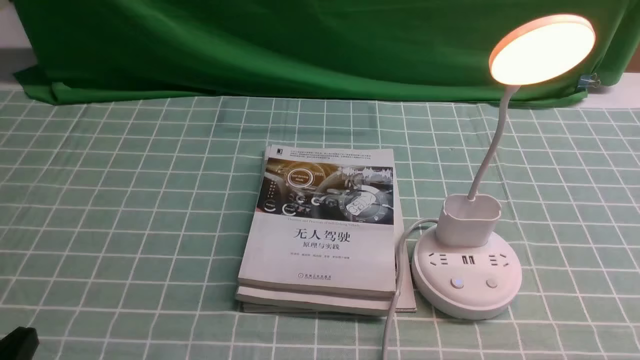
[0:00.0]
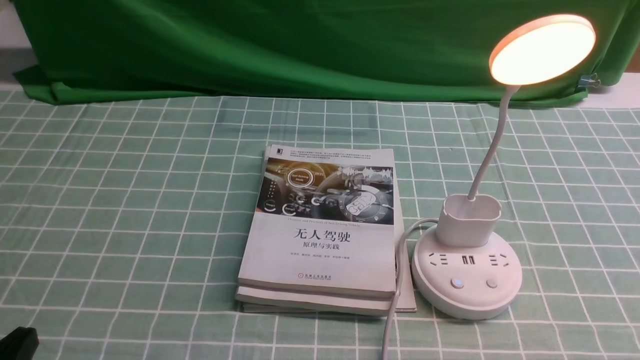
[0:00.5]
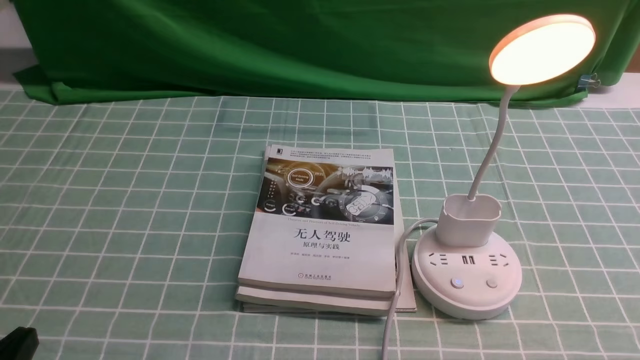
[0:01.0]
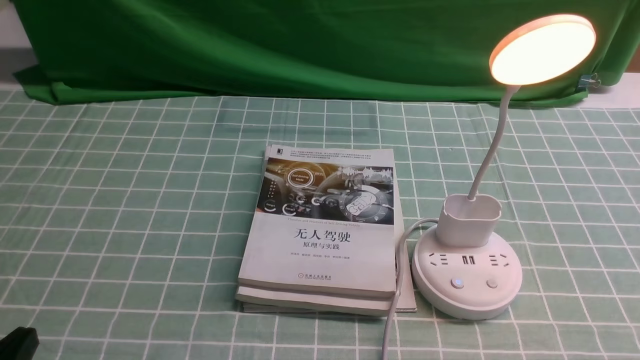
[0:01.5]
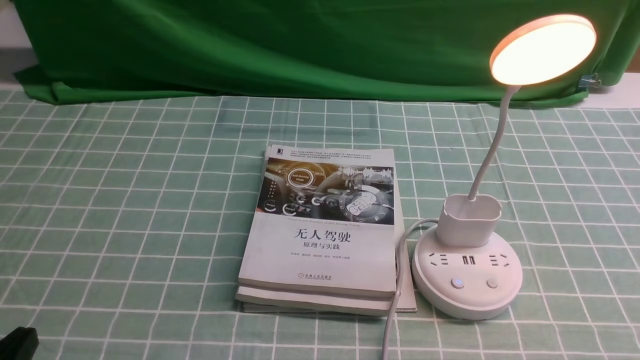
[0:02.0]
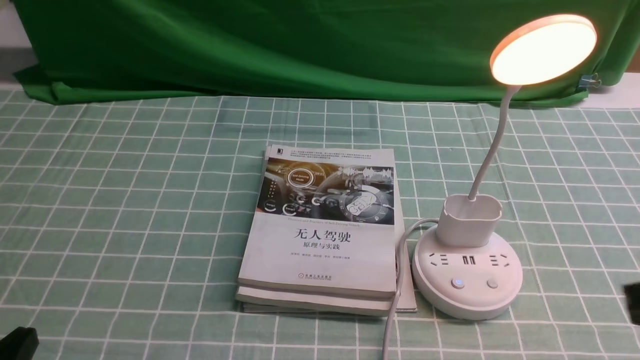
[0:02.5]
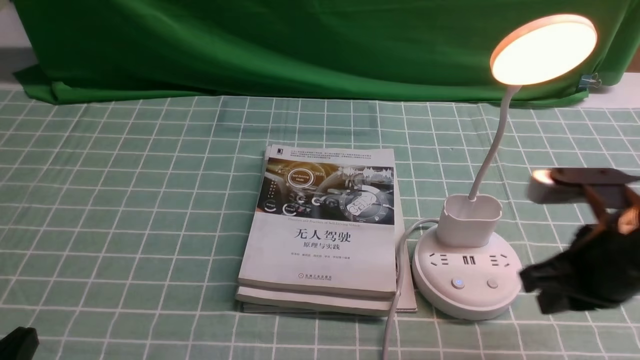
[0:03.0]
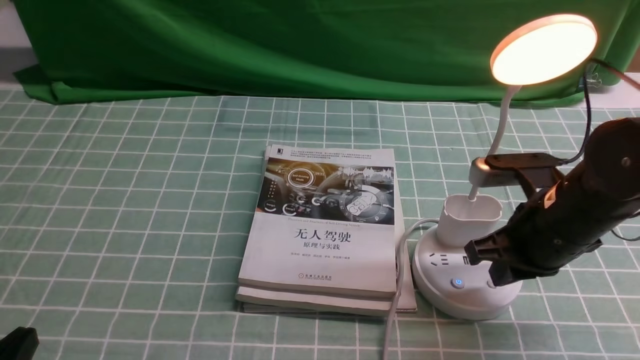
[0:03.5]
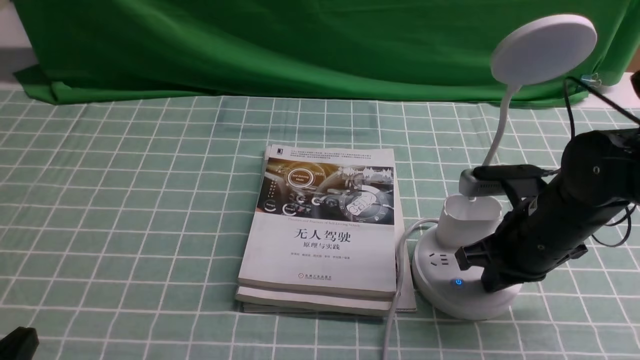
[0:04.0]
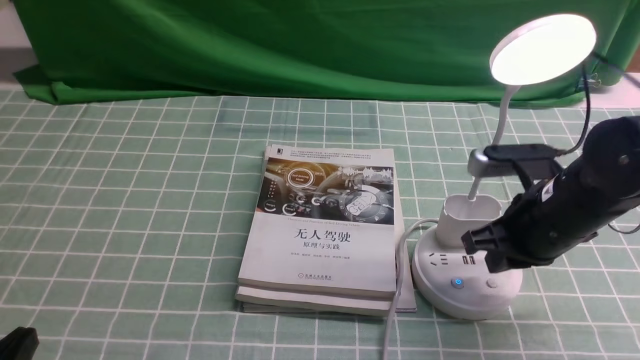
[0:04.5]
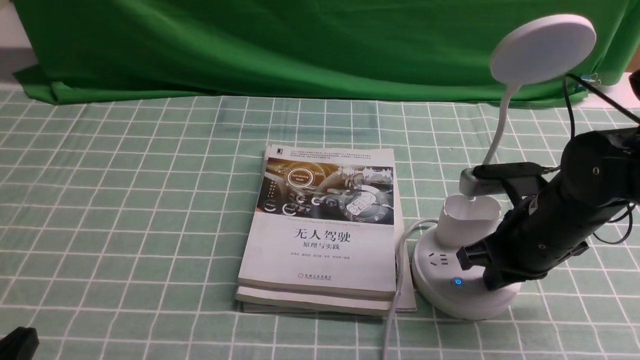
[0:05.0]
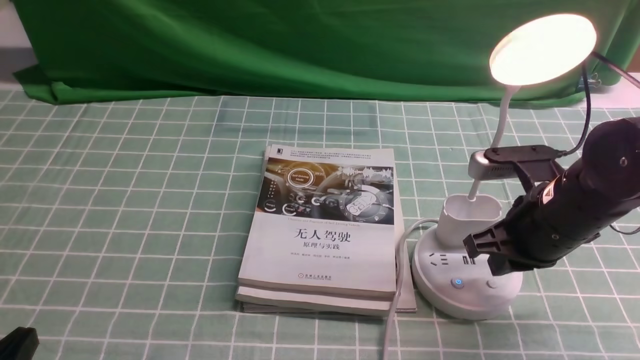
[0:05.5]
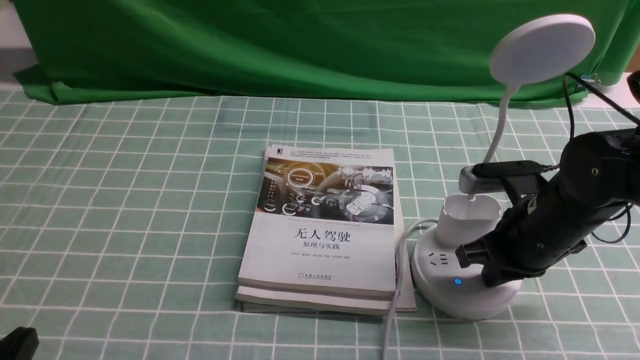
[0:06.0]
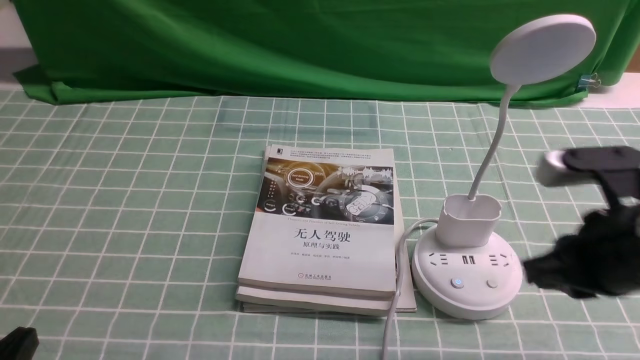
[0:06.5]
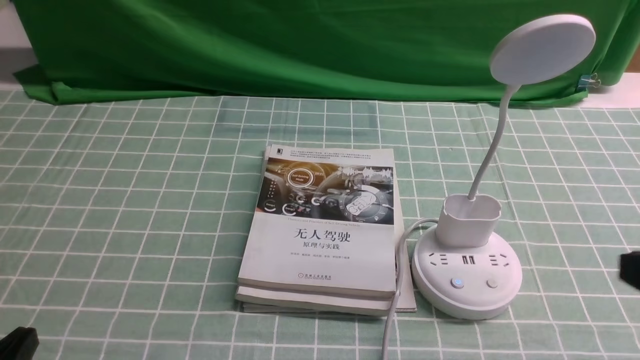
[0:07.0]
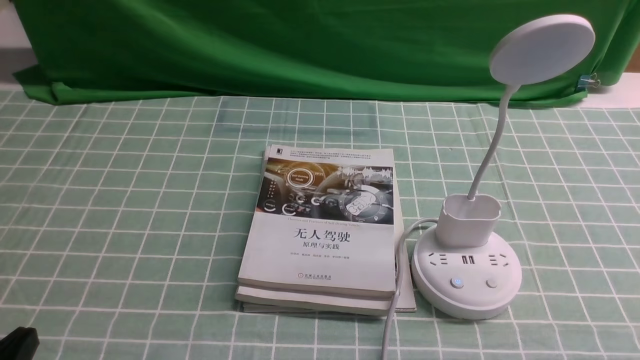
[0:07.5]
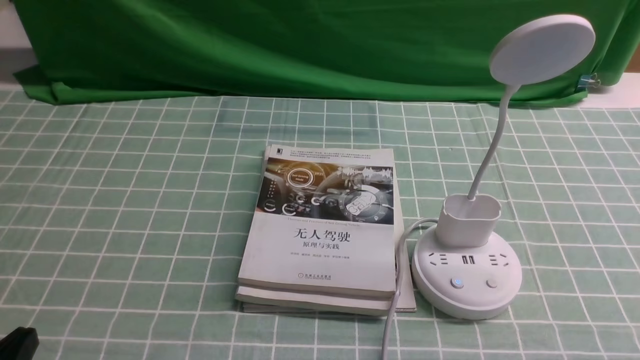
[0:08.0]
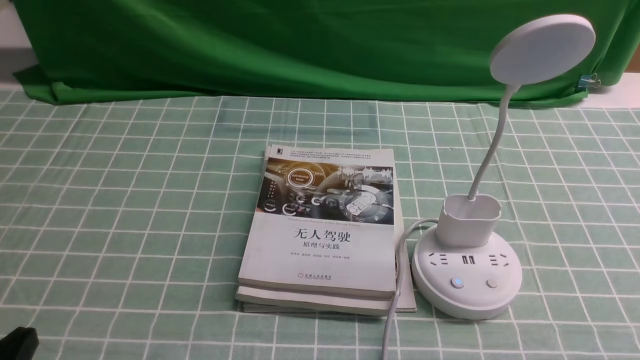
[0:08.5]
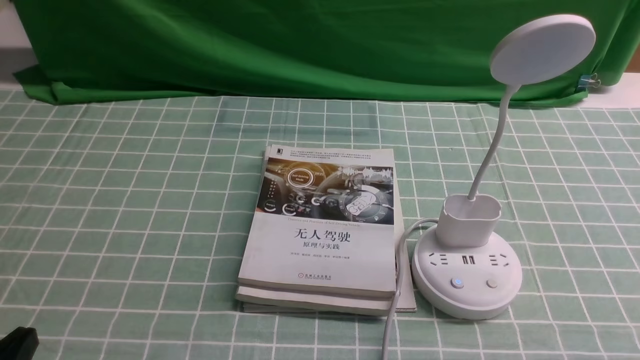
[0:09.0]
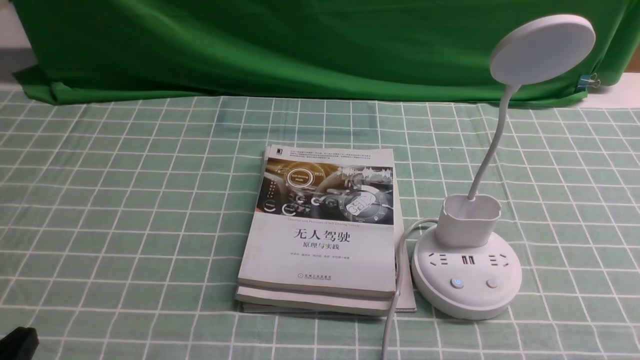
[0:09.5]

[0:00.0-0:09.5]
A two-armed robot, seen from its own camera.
Task of the whole recording: turn off the desk lamp on the blue coffee tablecloth by hand.
Step, 0:00.0 to 0:05.0: use the right arm to press the button switch on the lamp holder.
0:02.0 to 0:04.0: The right gripper shifts roughly 25 cm forward and to the left.
0:05.5 to 0:07.5: The right gripper travels backward and to the right by approximately 25 cm.

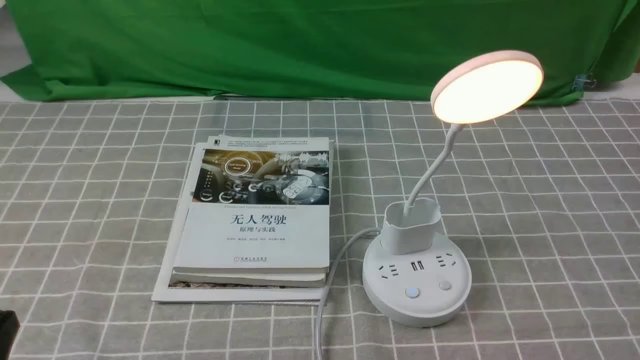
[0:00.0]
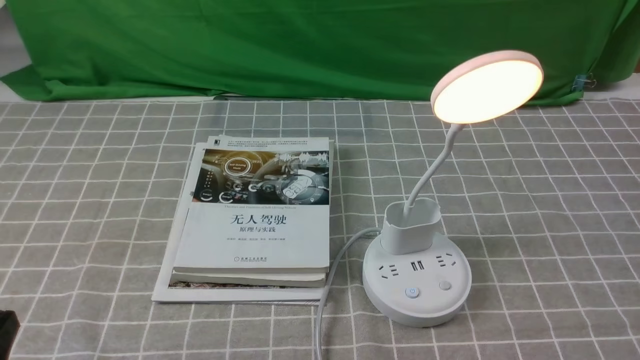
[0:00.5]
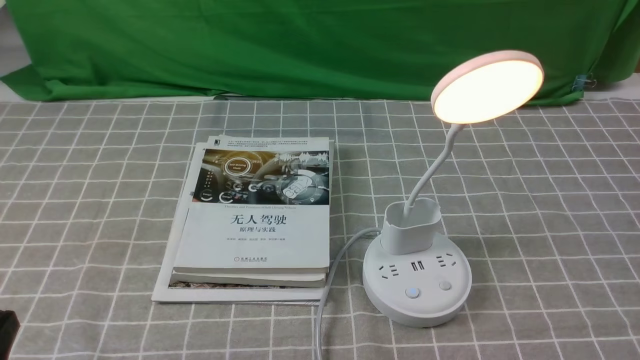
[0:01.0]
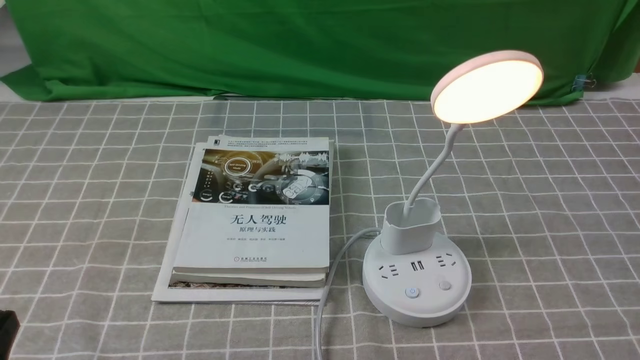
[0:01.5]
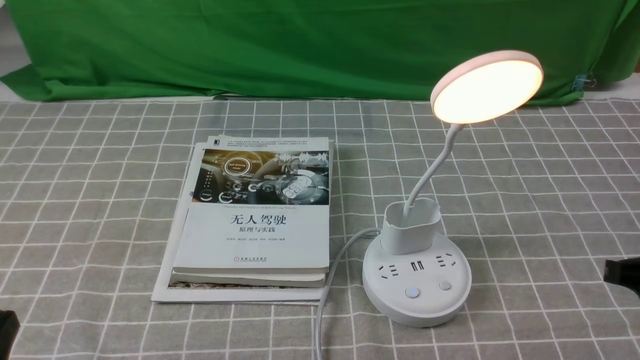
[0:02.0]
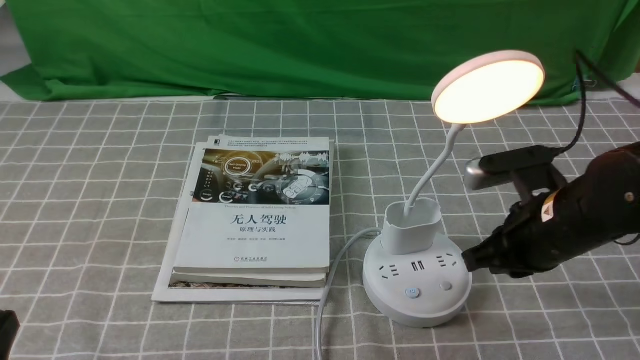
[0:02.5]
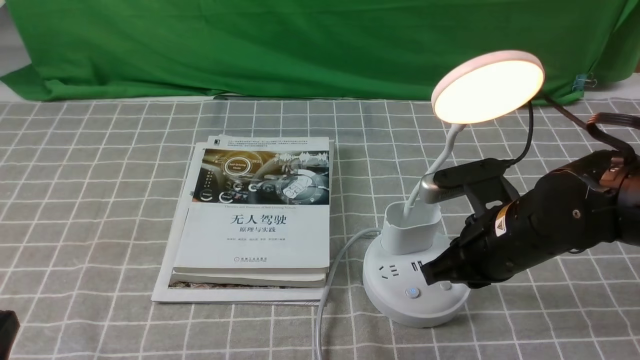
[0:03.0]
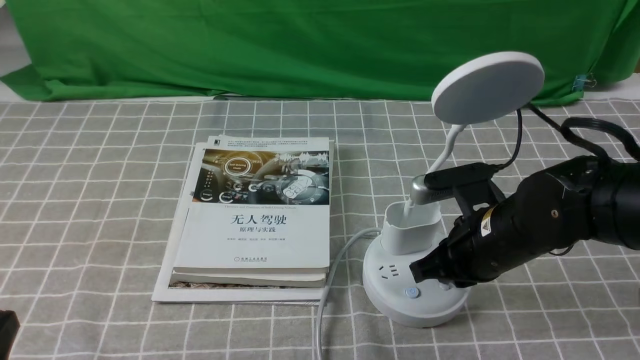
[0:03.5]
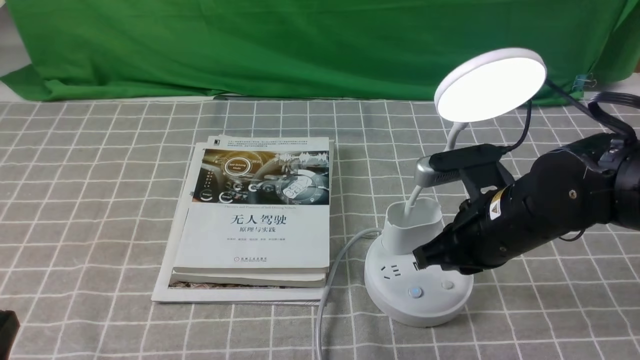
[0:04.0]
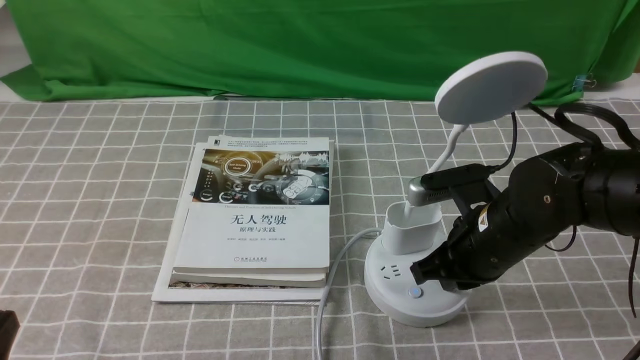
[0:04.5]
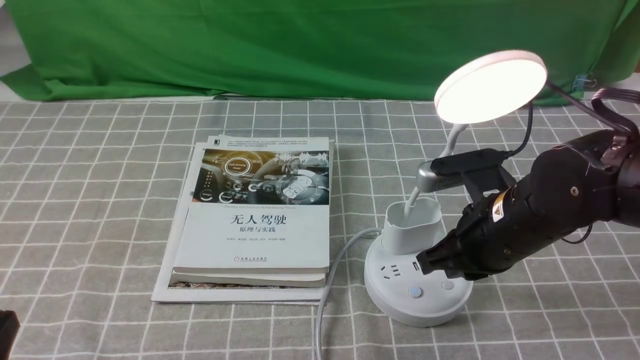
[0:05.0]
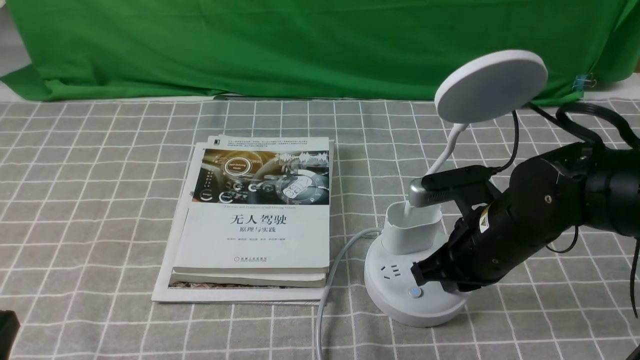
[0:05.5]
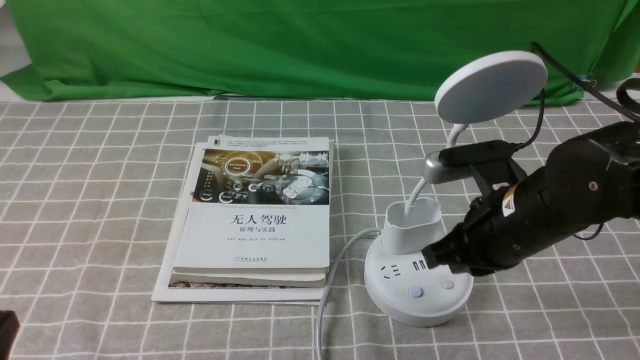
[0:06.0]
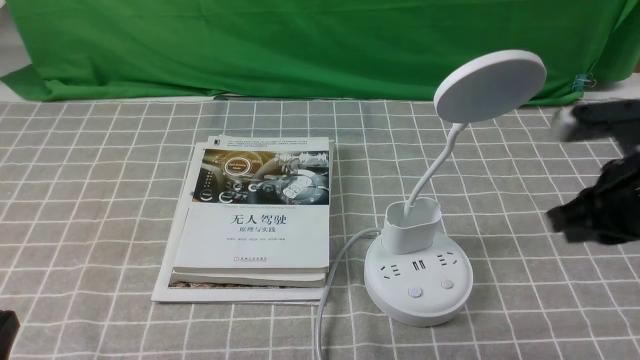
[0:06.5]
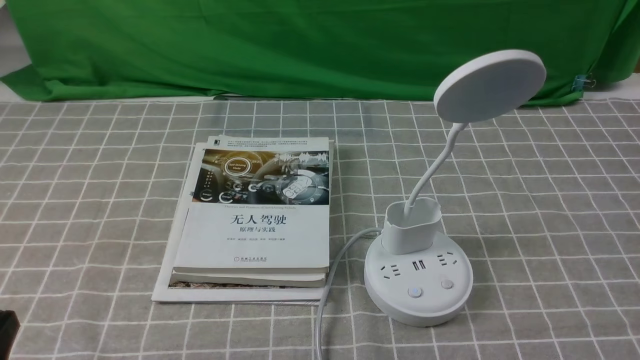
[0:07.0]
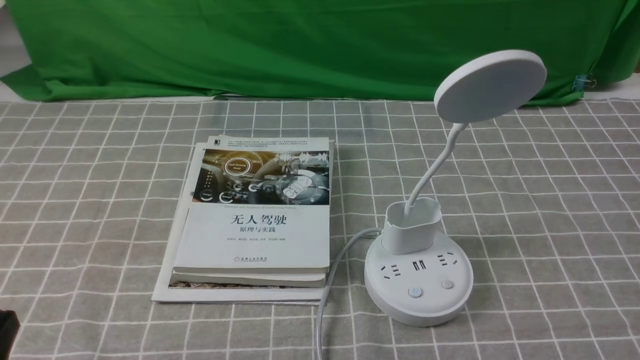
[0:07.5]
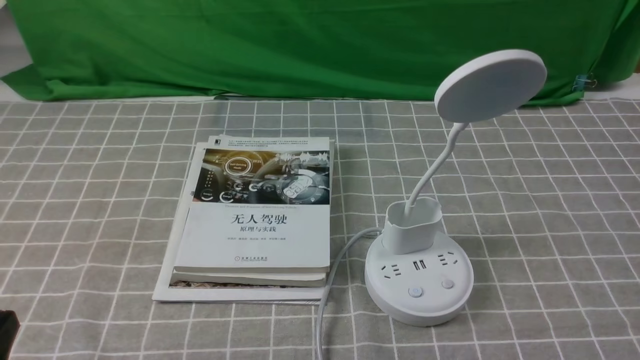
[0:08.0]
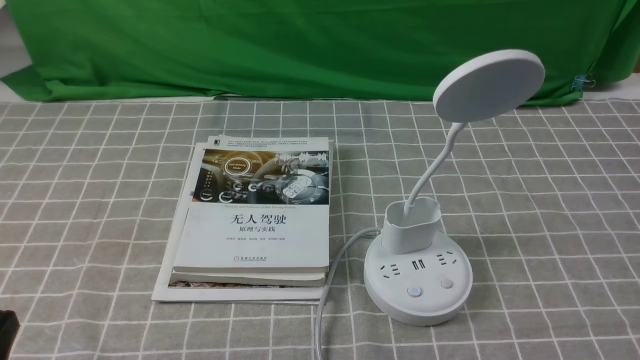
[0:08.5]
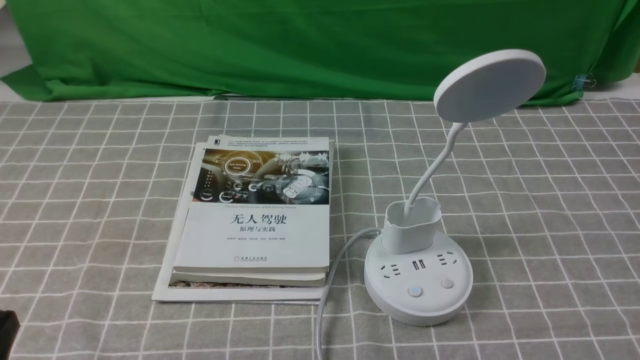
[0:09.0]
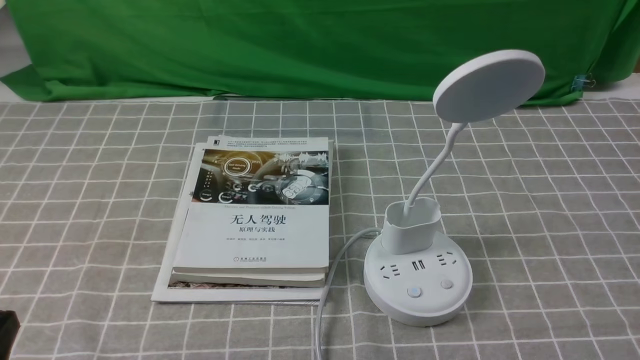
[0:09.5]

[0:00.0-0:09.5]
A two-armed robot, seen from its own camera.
Task of the whole recording: turn off the desk lamp on the grey coffee tablecloth by hand.
Step, 0:00.0 to 0:05.5: use the right arm to press the button switch on the lamp holder.
0:02.0 to 0:04.0: The right gripper is displaced to the left and forward by approximately 15 cm.
0:04.0 to 0:05.5: The grippers stay close to where they were, moving slightly.
0:05.5 to 0:07.5: The right gripper is displaced backward, to the right and upward by roughly 30 cm.

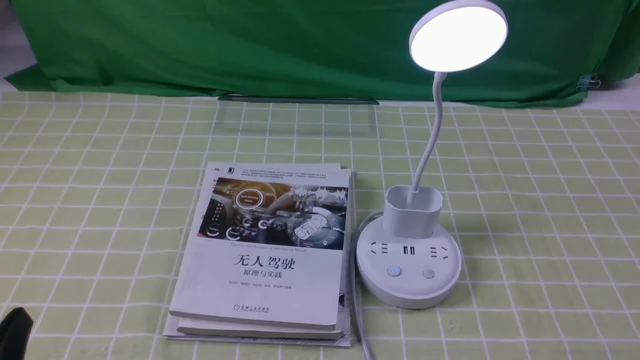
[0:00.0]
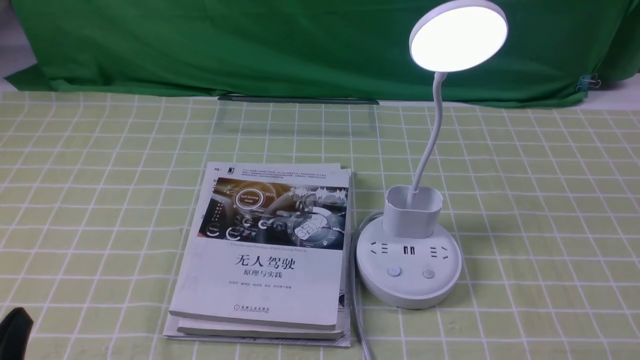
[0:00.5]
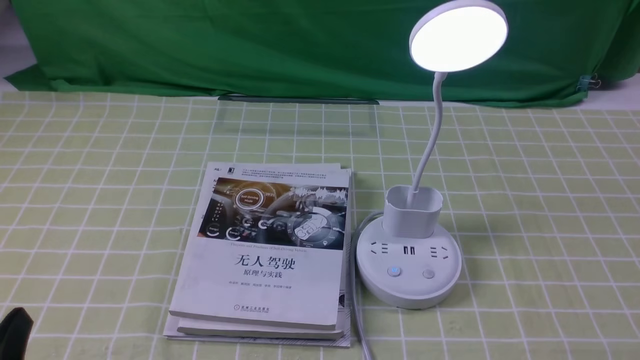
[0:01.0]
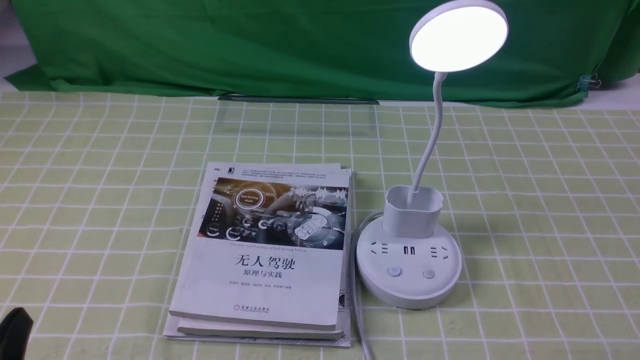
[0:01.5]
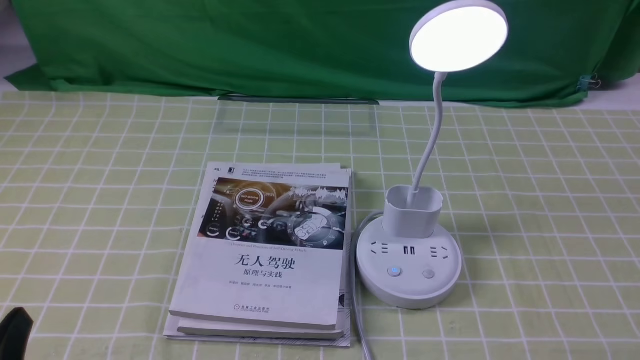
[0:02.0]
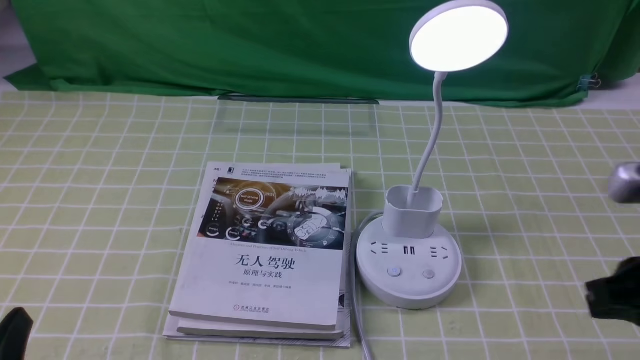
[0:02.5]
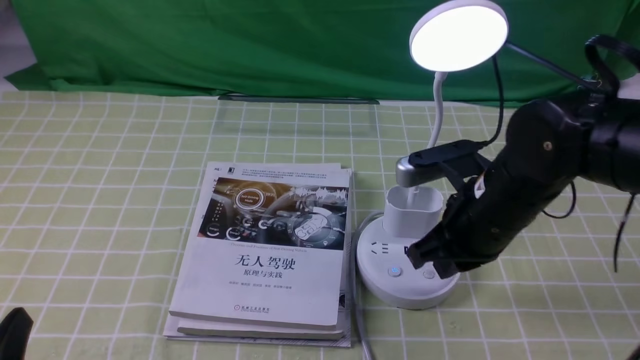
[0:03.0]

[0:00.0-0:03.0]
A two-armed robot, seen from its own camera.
Task of the whole recording: turn off the desk lamp on the green coffee tablecloth by hand.
0:01.5 to 0:03.0: The right gripper goes some 30 cm forward and to the left, and closes up.
